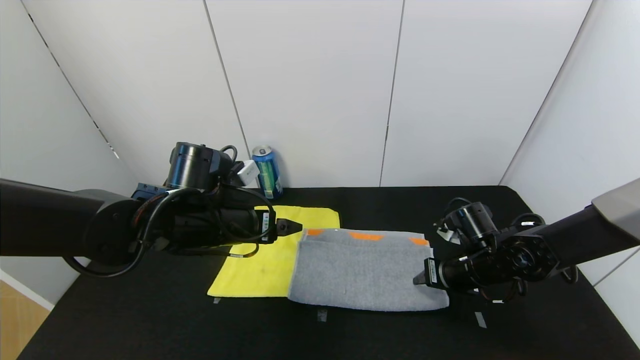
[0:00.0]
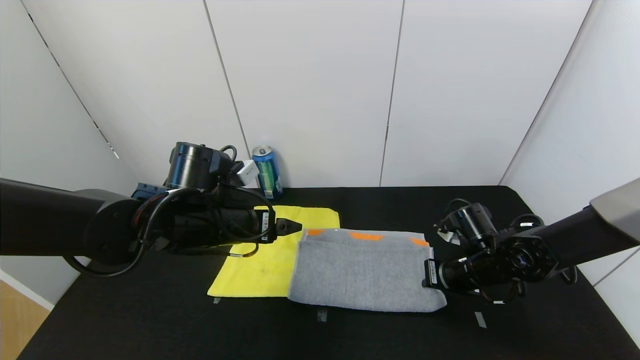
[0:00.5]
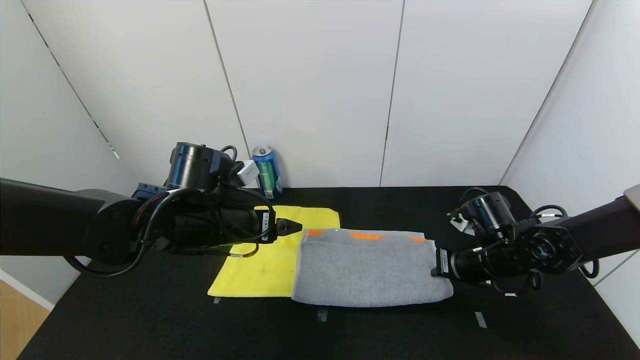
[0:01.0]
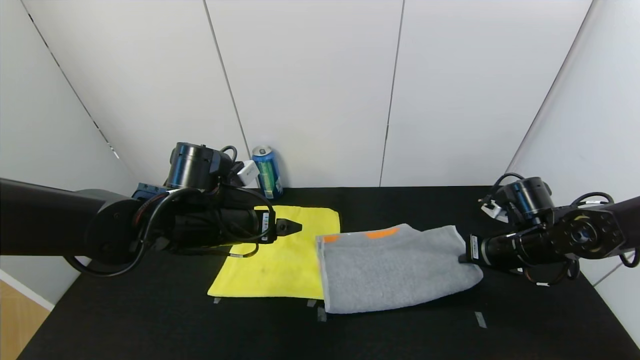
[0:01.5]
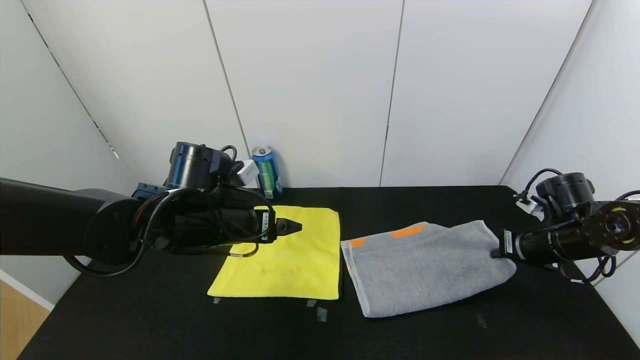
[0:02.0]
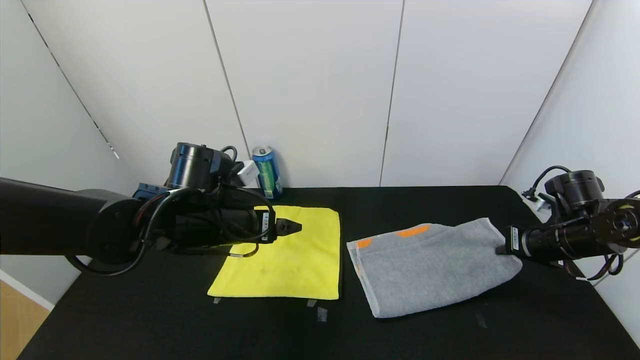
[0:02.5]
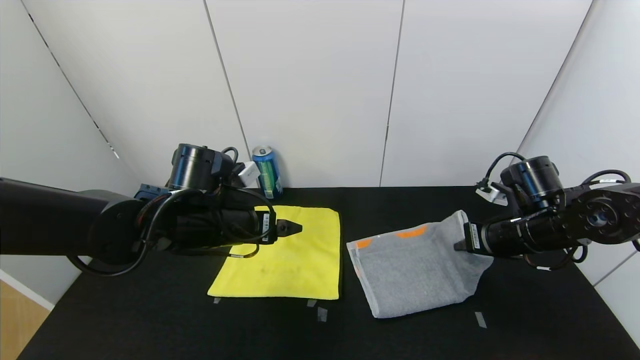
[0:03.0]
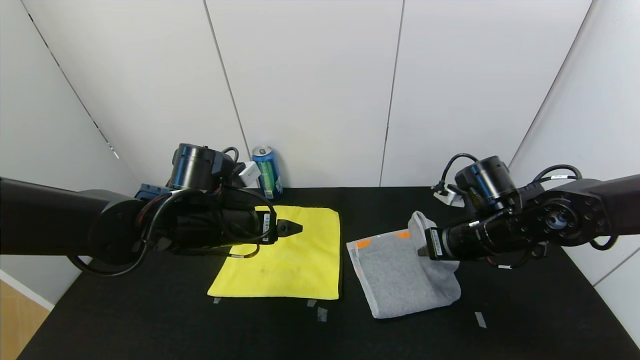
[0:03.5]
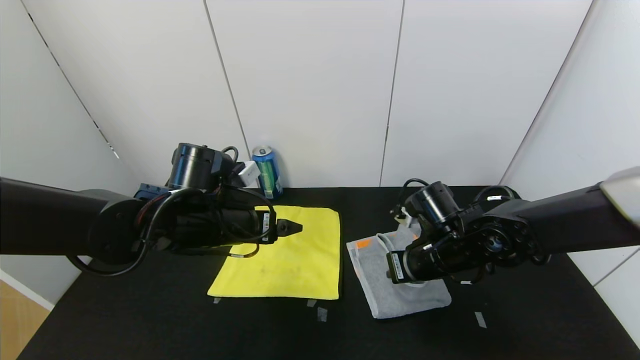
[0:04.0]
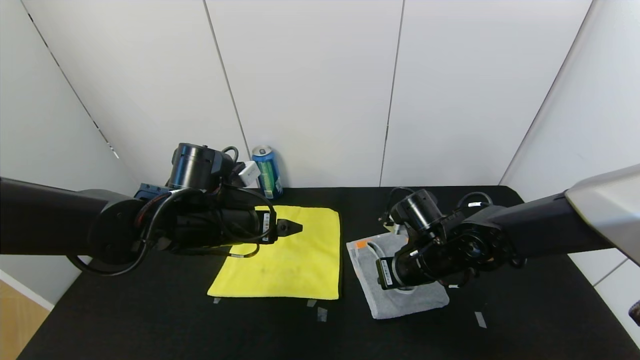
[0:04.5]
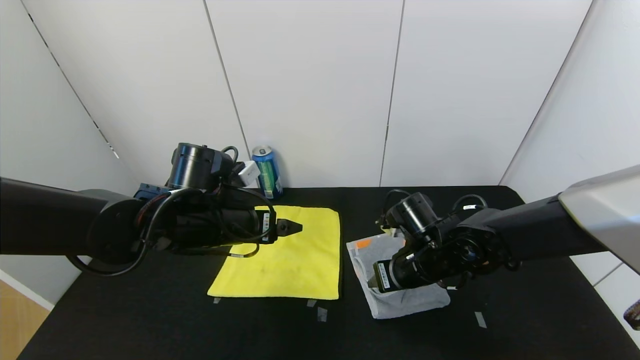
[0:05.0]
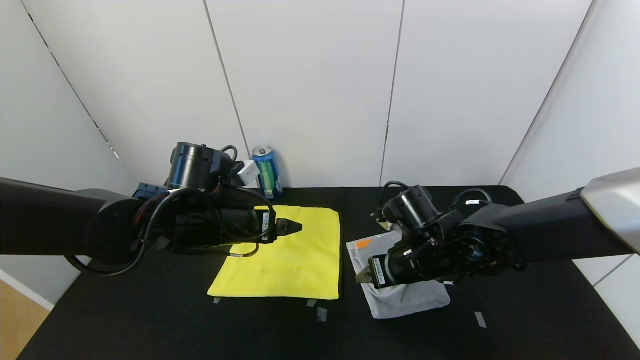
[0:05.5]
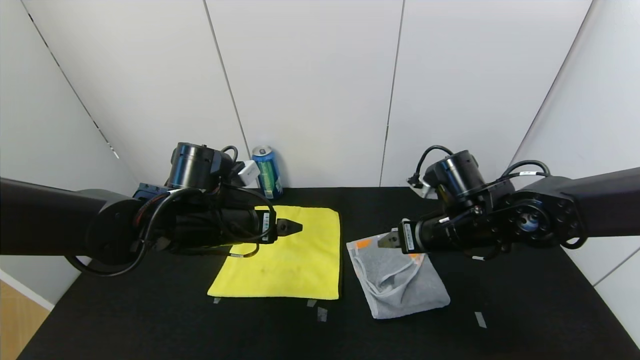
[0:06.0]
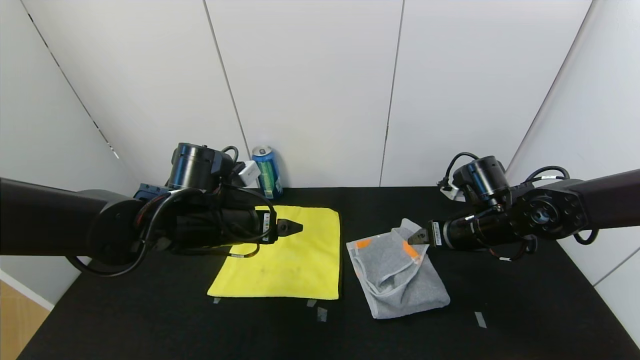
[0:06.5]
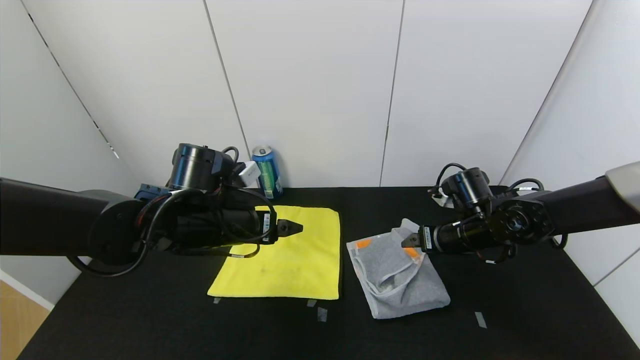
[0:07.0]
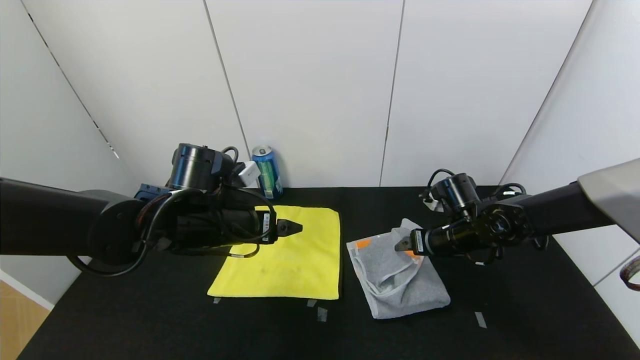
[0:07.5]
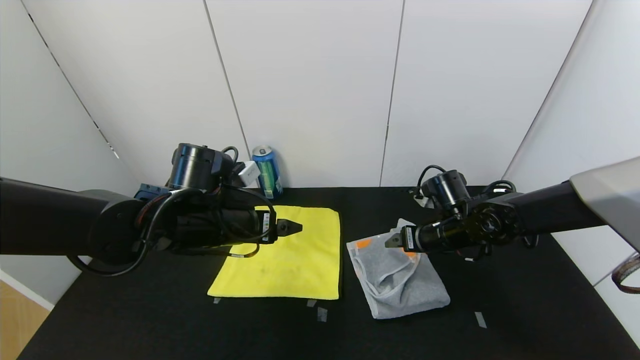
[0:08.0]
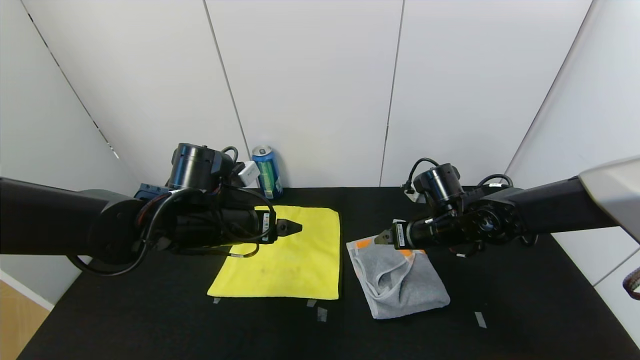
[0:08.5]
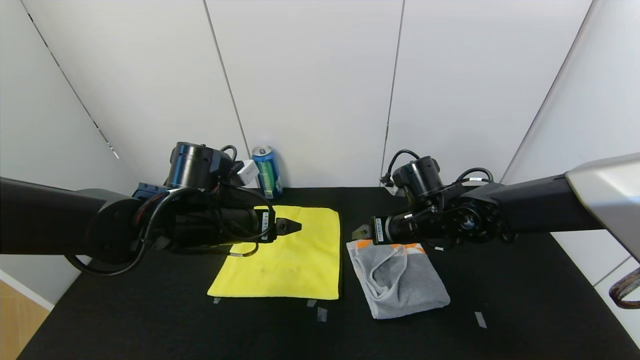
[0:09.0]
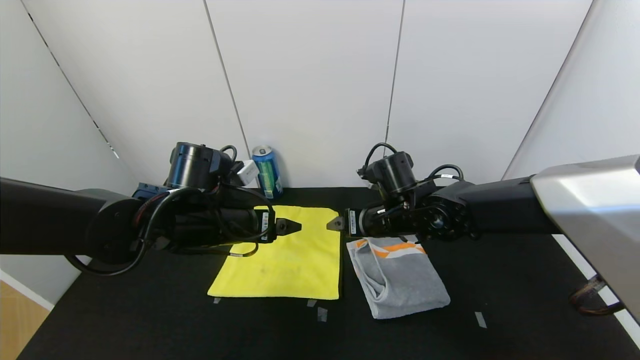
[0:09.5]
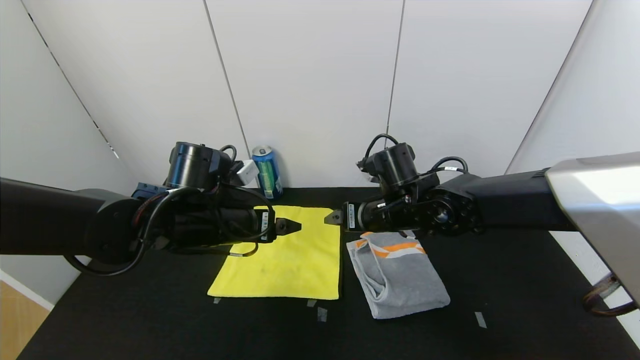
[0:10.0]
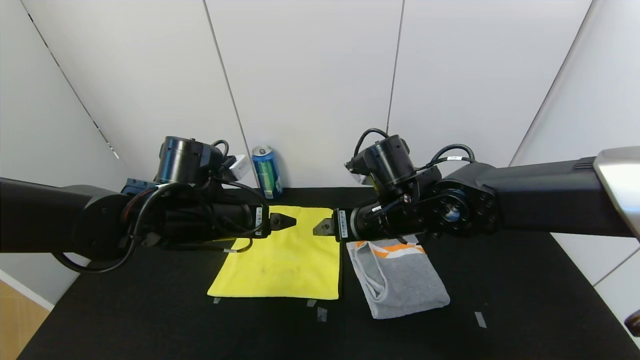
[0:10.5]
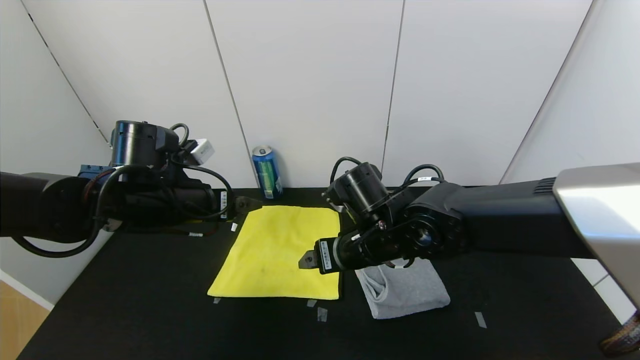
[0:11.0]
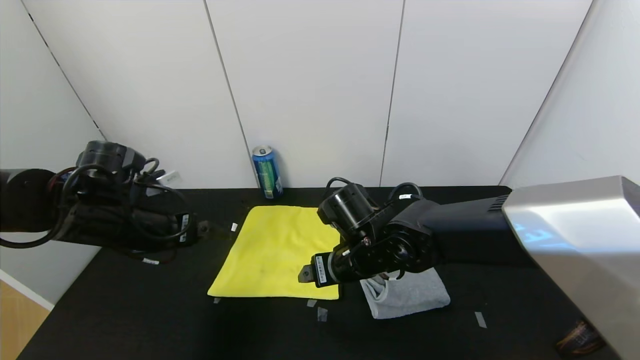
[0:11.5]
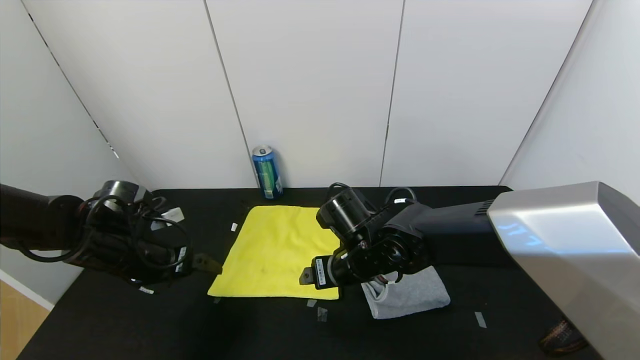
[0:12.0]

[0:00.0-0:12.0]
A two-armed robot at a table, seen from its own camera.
Task of the whole recording: Use the gripper to fold the yellow towel and grey towel in half twice,then put the yellow towel on the grey towel.
Step, 0:00.0 to 0:10.5: Fold the gray towel from right to left with right gripper.
0:00.0 to 0:02.0: The right gripper travels to the right by roughly 15 cm, and closes.
0:02.0 to 0:04.0: The right gripper is displaced to the left by some 20 cm.
0:04.0 to 0:06.0: The right gripper moves about 5 cm, and opens up.
0:06.0 to 0:08.0: The right gripper is displaced downward and forward by about 10 cm.
0:08.0 to 0:10.0: The right gripper moves to the left and upward, some 10 cm.
0:10.0 to 0:12.0: The left gripper travels to the left and downward by about 15 cm. Meanwhile the right gripper moves to the left, some 5 cm.

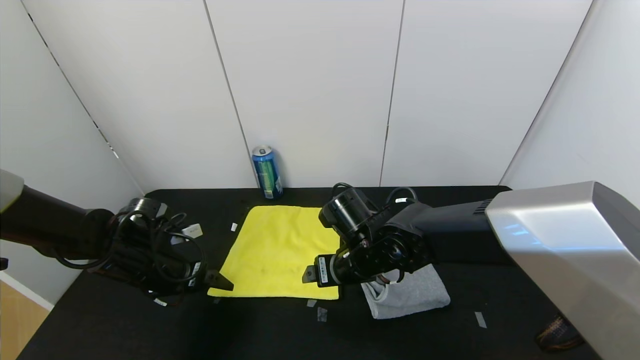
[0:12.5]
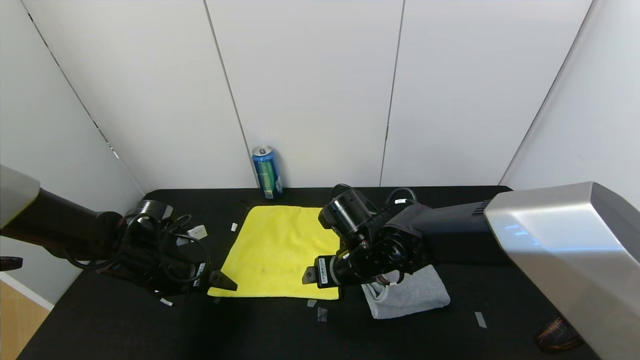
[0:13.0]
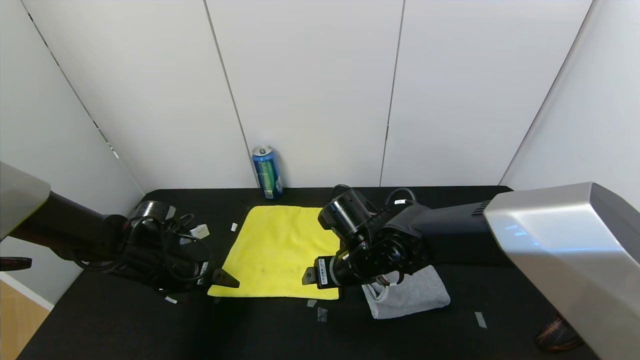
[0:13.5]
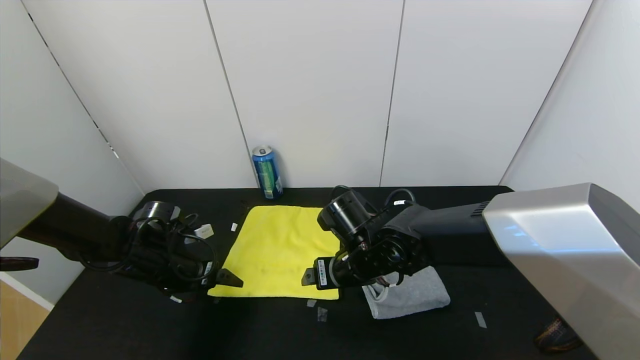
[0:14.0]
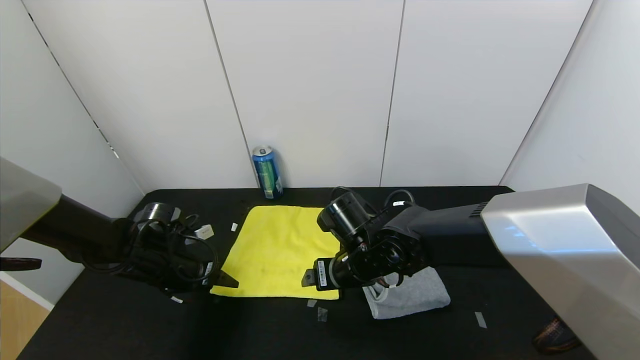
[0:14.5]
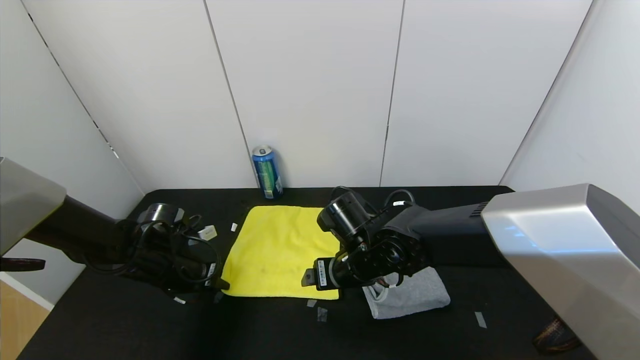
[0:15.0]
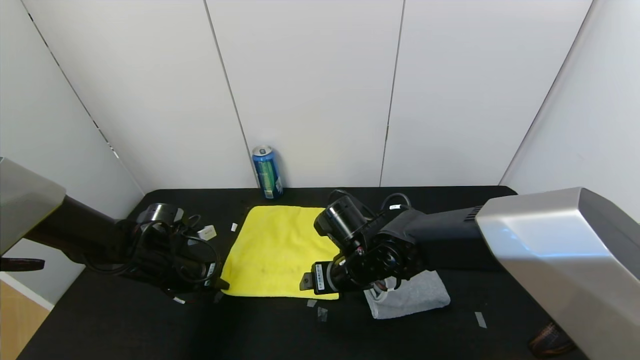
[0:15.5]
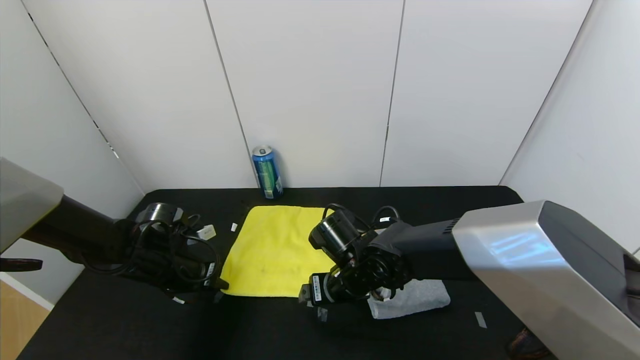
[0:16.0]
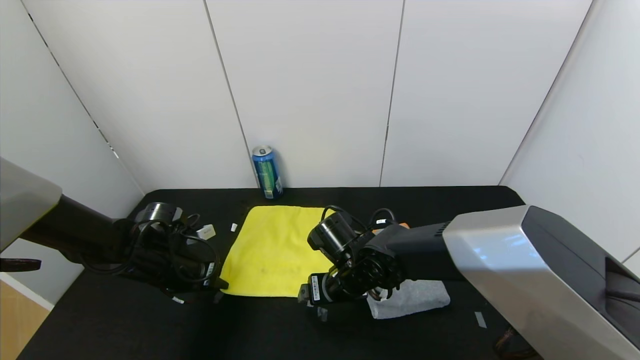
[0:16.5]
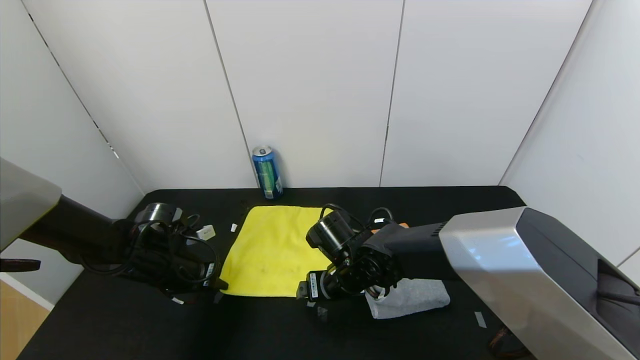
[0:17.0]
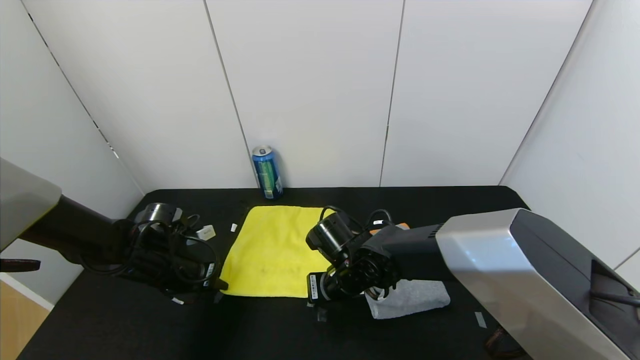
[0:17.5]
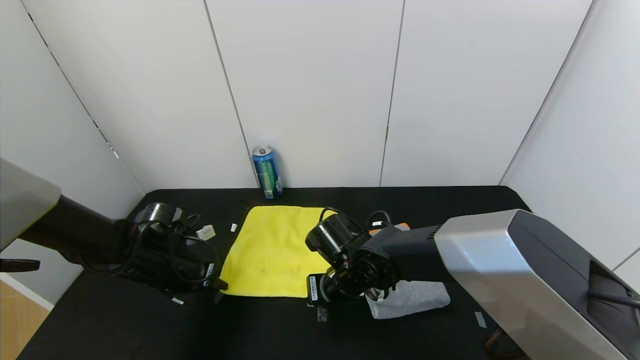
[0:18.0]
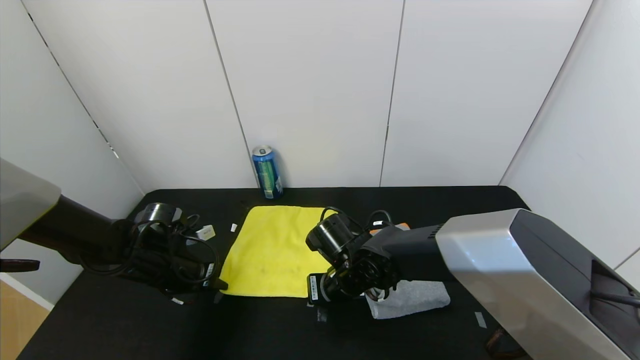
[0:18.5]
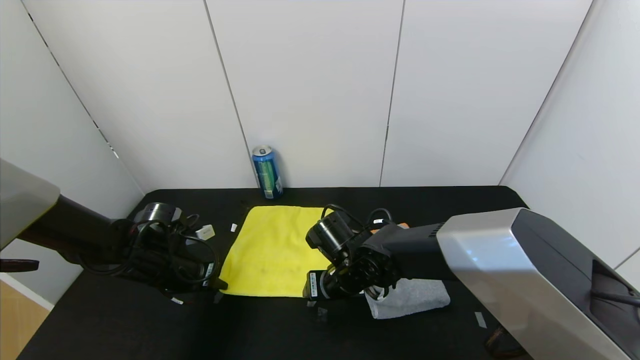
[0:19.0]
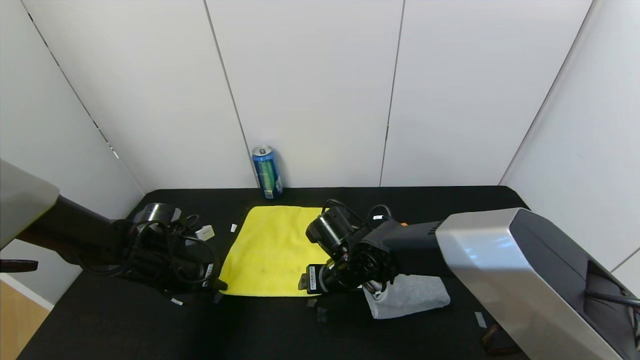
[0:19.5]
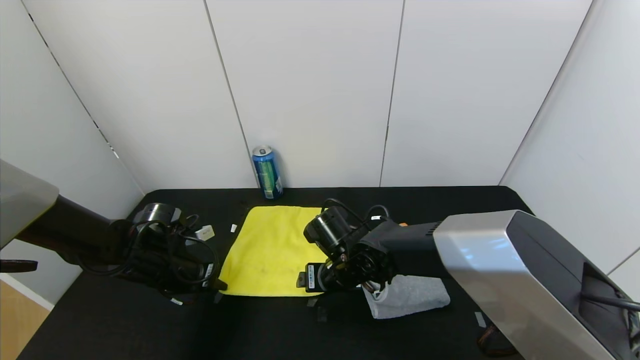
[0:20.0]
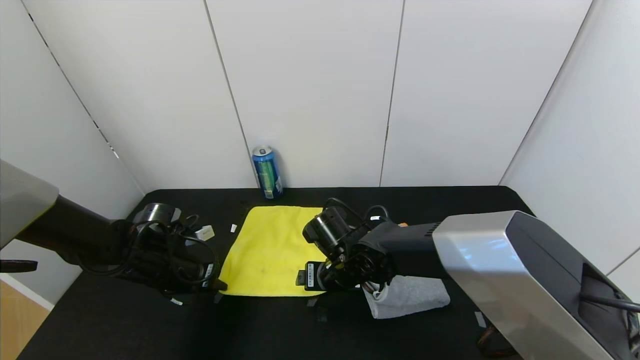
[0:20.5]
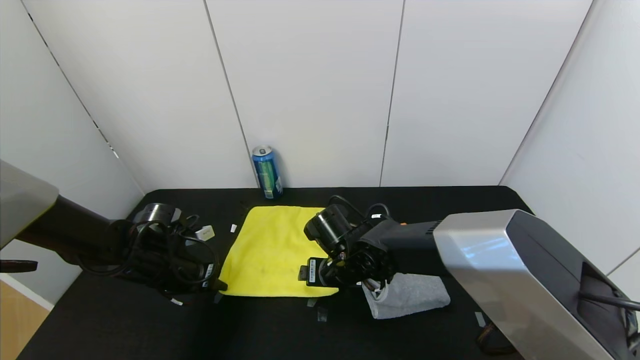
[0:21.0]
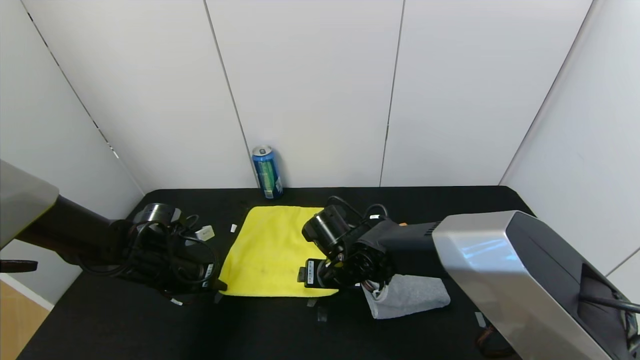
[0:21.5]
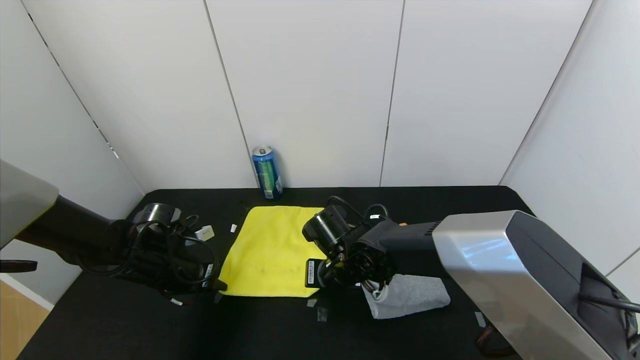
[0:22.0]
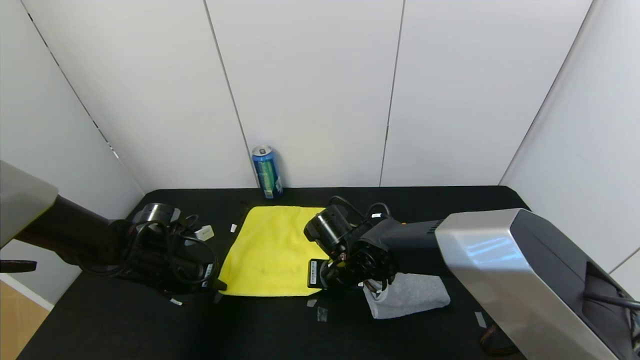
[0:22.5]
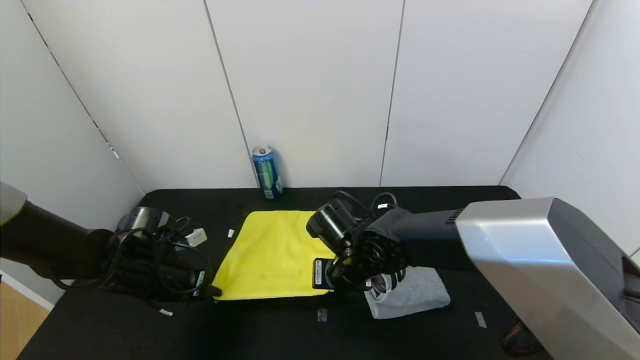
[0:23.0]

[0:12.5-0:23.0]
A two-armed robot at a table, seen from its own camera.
Task of the whole recording: Use the gripper to fold the yellow towel and grey towel in half twice,then put the yellow towel on the grey towel.
0:12.5 to 0:14.5: The grippers move only a little.
0:14.5 to 0:16.5: The left gripper closes.
0:16.5 to 0:19.0: The right gripper closes, then opens again.
0:19.0 to 0:21.0: The grippers stay close to where they were, moving slightly.
0:21.0 to 0:23.0: The right gripper closes its fingers.
